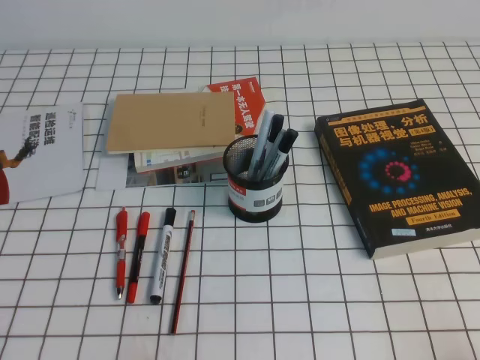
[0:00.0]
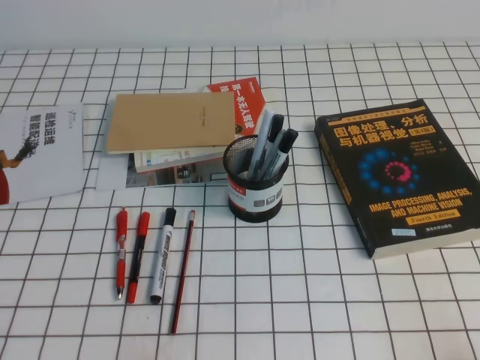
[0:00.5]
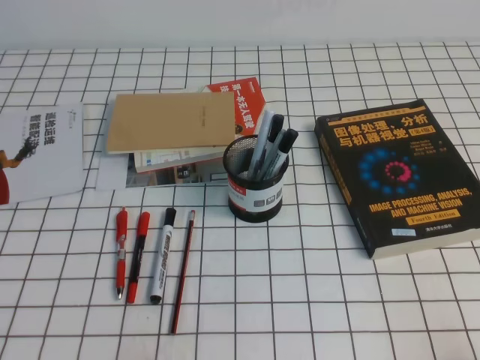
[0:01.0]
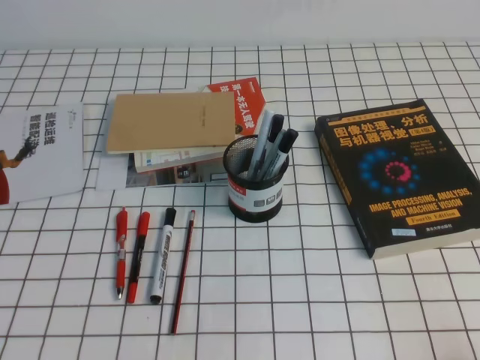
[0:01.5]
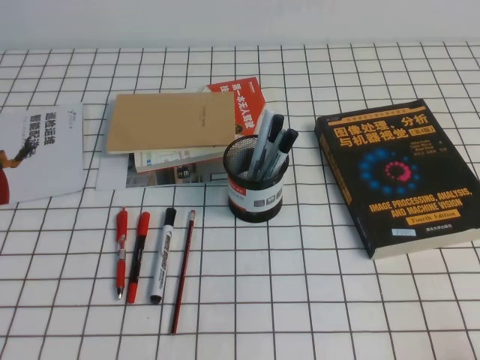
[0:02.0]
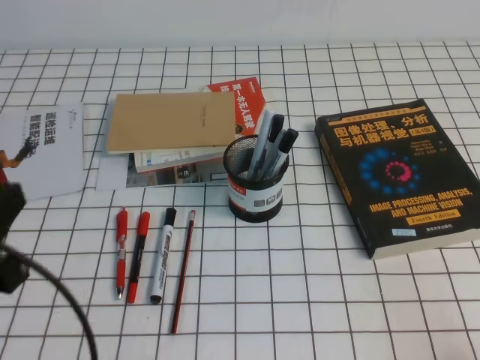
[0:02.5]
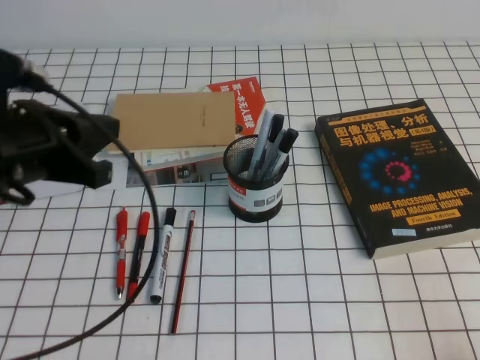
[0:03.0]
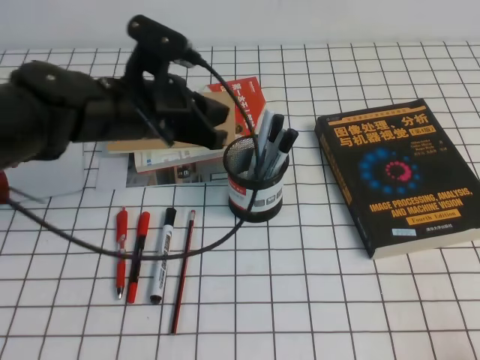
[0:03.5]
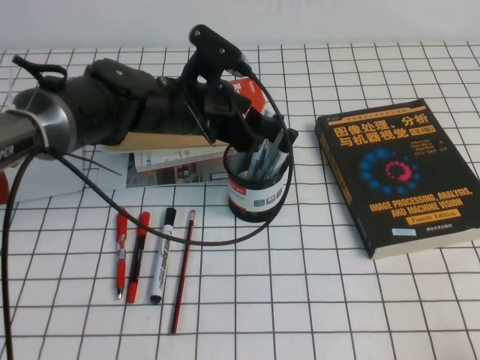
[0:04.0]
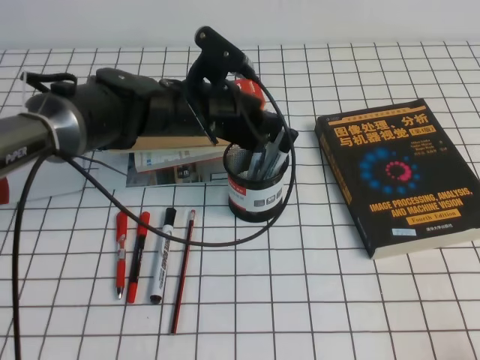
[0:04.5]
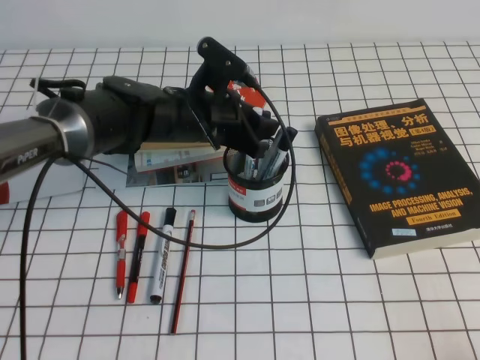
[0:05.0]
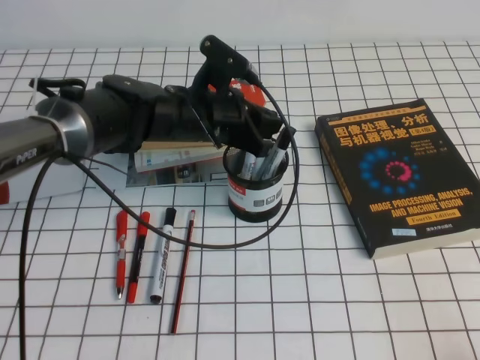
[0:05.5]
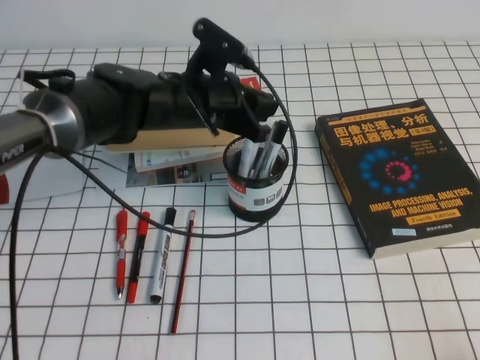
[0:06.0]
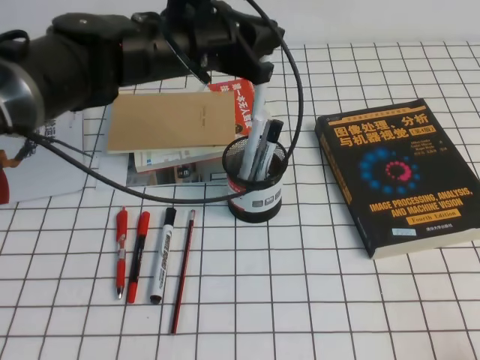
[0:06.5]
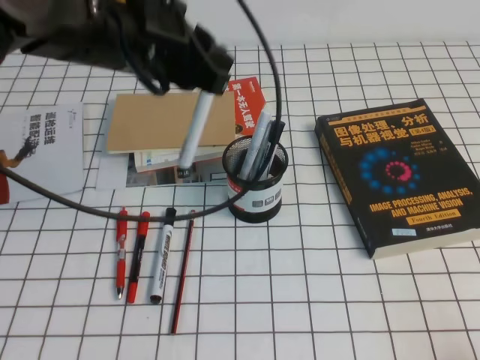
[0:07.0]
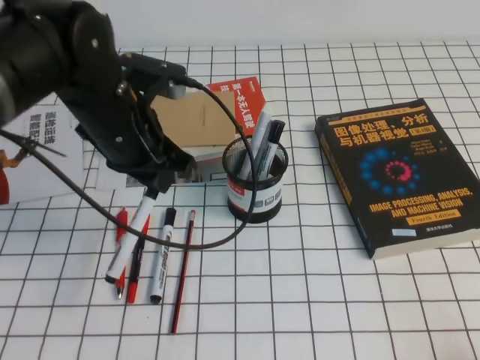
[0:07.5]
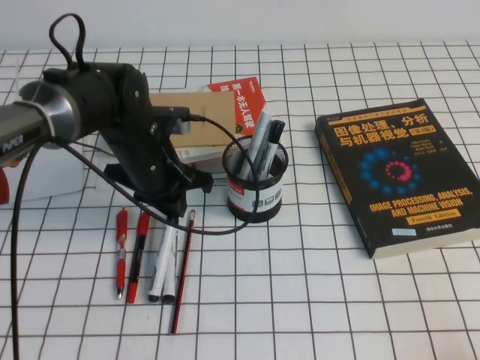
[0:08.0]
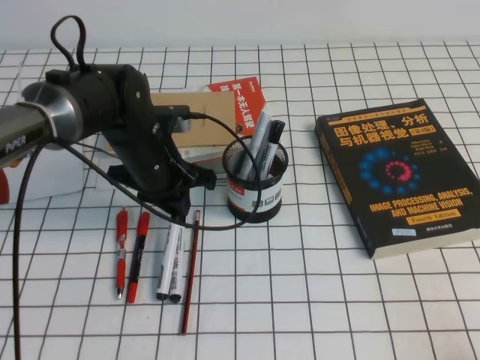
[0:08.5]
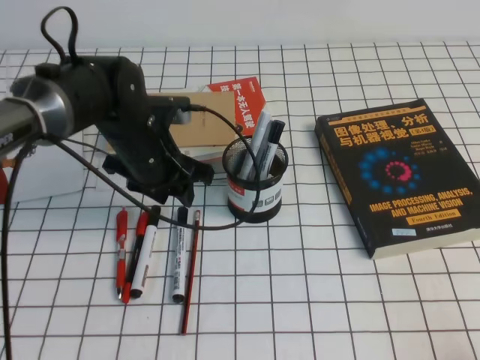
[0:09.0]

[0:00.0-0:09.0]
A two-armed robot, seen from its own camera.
0:02.0 to 0:04.5: The left gripper goes some 40 cm forward and to the right, and opens up.
0:04.5 to 0:07.0: The left gripper shifts roughly 15 cm upward and backward, and closes its fingers.
0:07.0 to 0:09.0: The left gripper heads downward, covering about 15 cm.

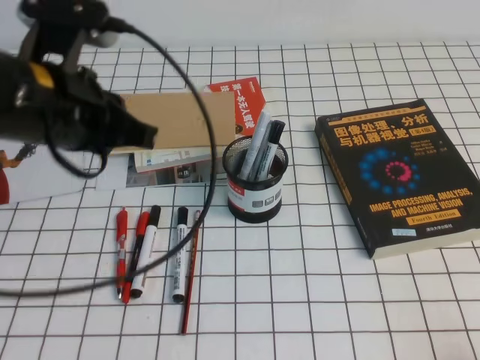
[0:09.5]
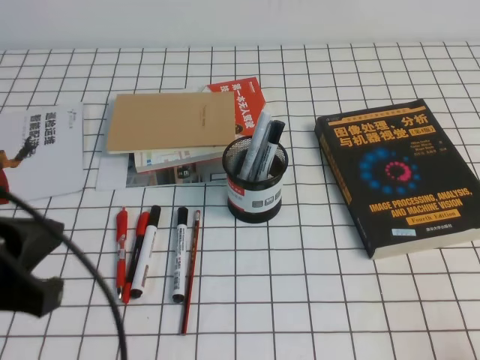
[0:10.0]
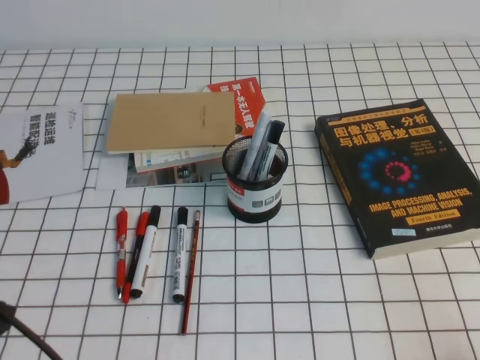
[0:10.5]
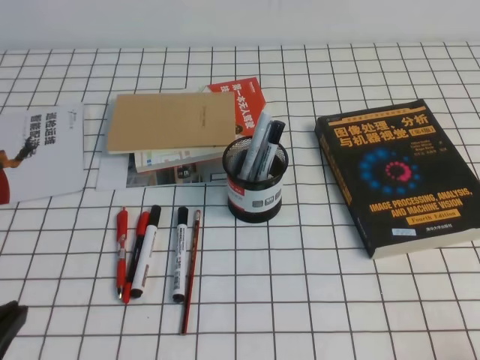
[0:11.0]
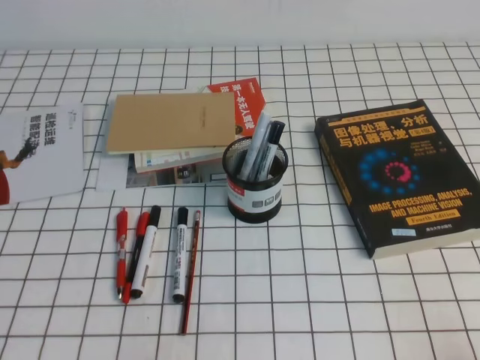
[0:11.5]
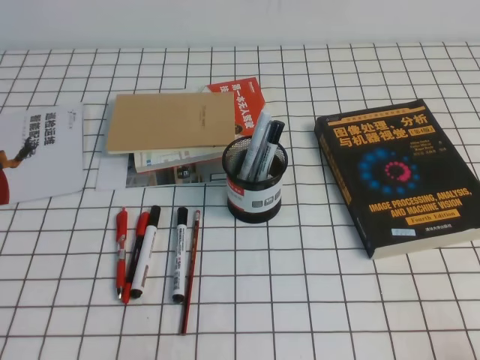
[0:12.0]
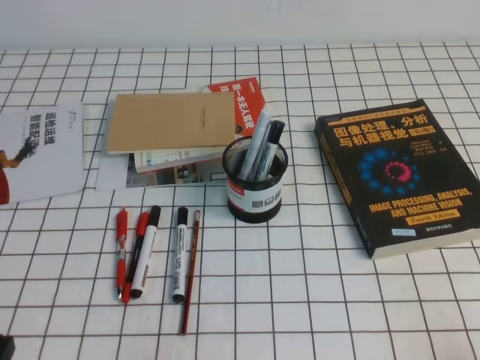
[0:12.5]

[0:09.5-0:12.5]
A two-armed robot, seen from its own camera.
Step, 0:09.5 to 0:12.5: Pick up the pen from the pen holder.
0:09.5 to 0:11.0: The left gripper heads backward, to the left and downward, covering about 25 cm.

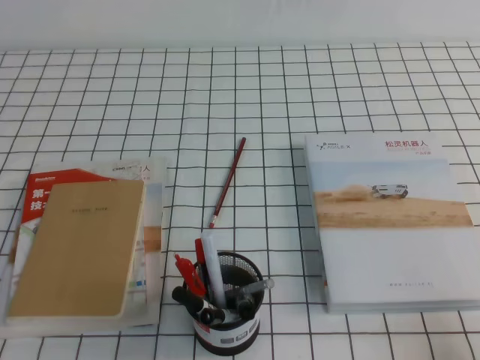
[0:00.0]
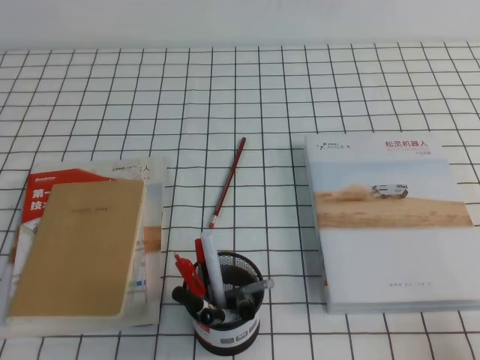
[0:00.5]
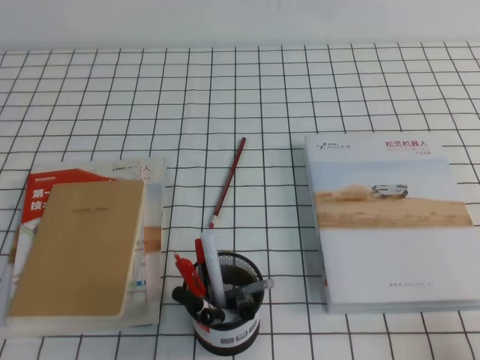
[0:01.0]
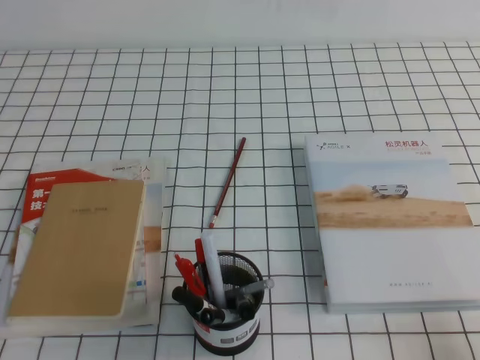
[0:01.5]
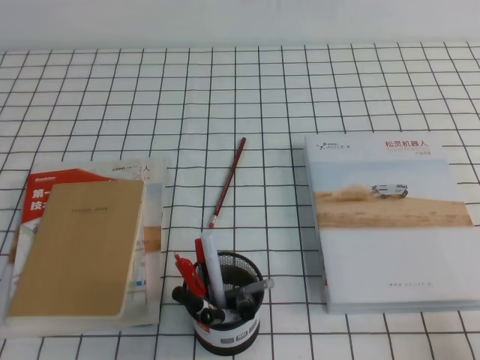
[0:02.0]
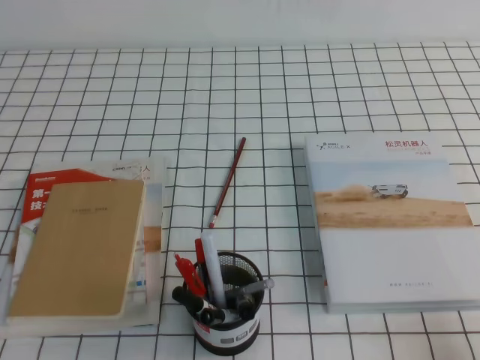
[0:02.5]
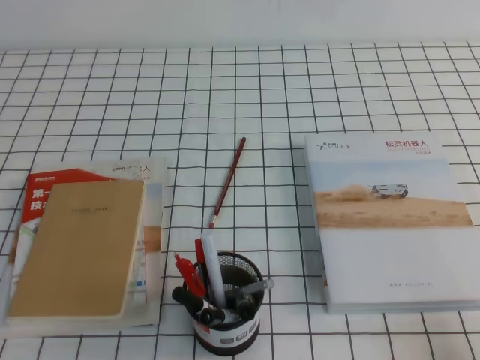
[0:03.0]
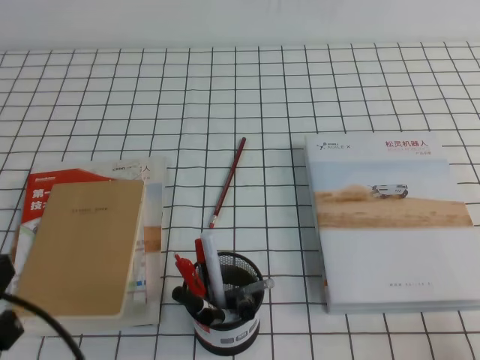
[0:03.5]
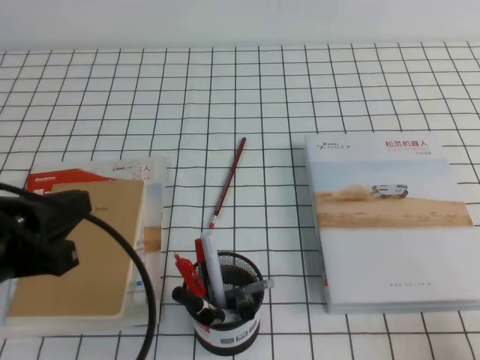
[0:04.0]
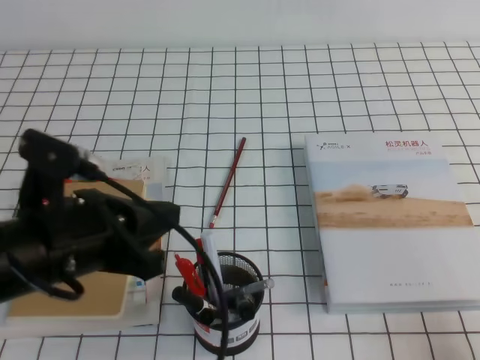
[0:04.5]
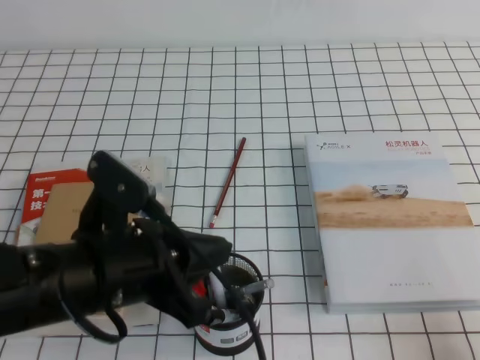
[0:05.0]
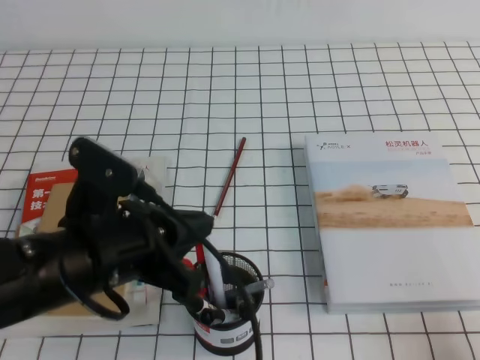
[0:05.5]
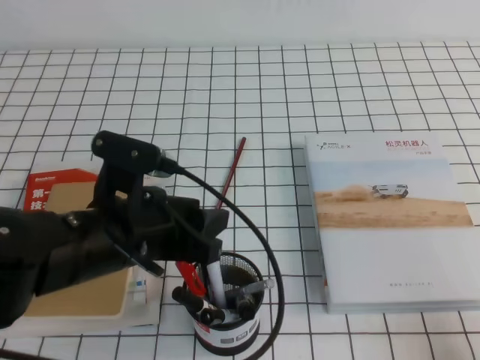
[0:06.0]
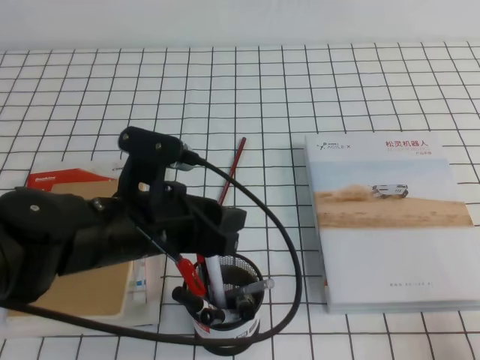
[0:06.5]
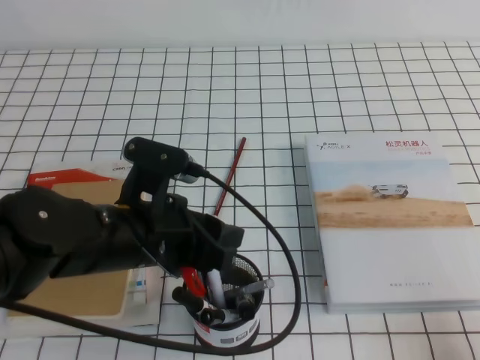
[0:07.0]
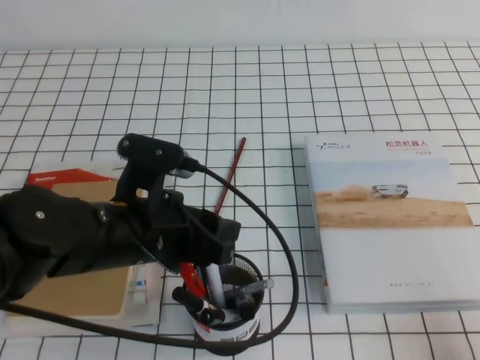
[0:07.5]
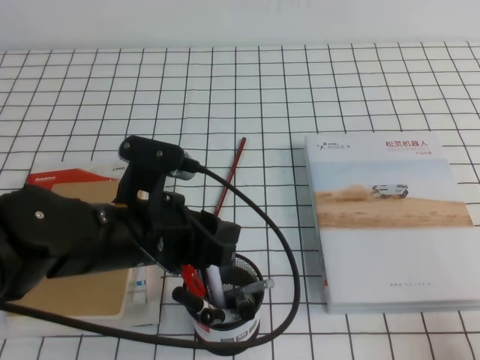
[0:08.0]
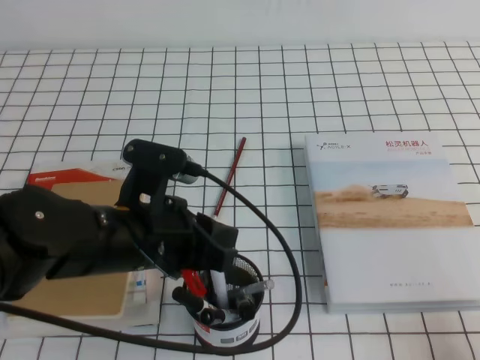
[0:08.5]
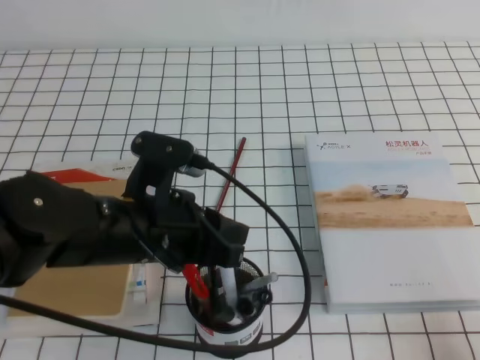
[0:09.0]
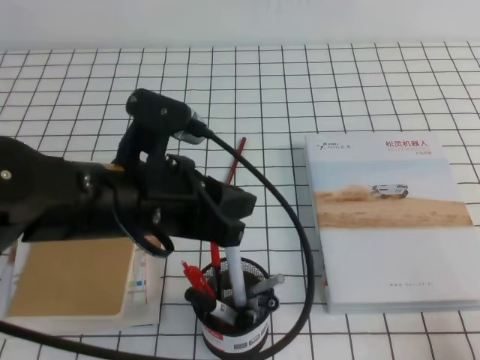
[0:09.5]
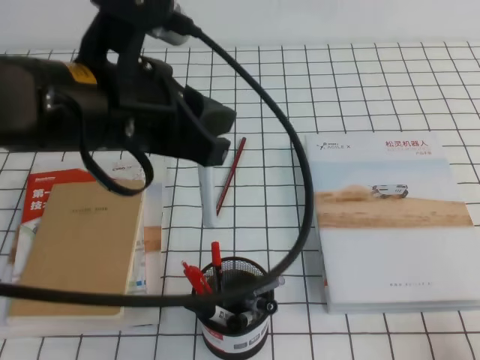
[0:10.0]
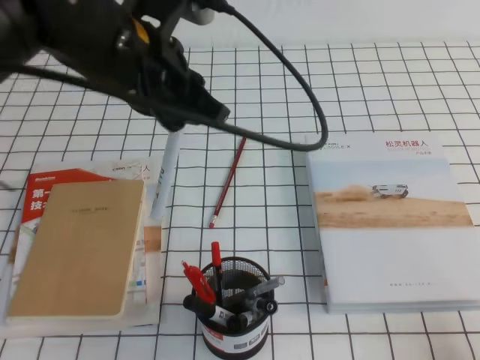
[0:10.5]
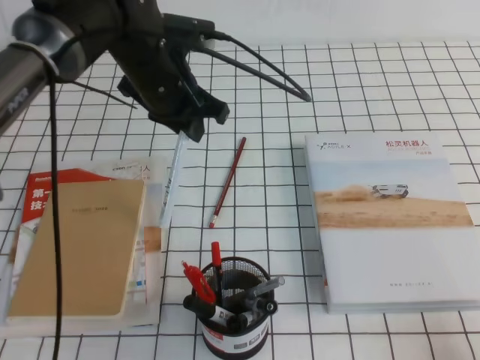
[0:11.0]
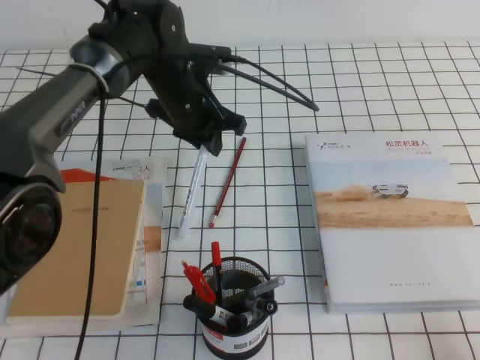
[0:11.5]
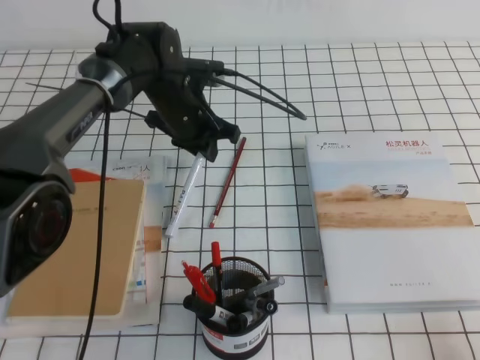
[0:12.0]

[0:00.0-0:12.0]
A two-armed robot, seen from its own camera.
0:00.0 to 0:02.0: Both grippers stay put.
0:02.0 to 0:04.0: The left gripper heads upward, forward and to the right, covering approximately 15 cm.
0:04.0 to 0:06.0: The left gripper is displaced to the right and forward by about 10 cm, and opens.
0:06.0 to 0:08.0: The grippers make only small movements.
0:08.0 to 0:10.0: The left gripper heads upward, covering approximately 15 cm, and closes its fingers.
0:10.0 to 0:12.0: The left gripper goes roughly 30 cm forward and downward.

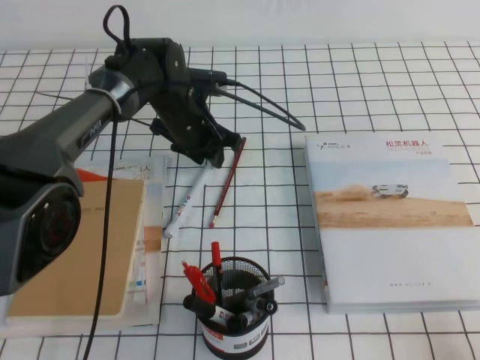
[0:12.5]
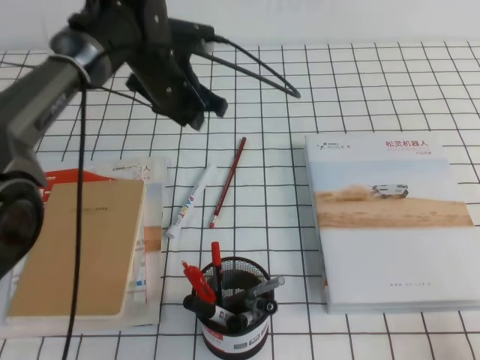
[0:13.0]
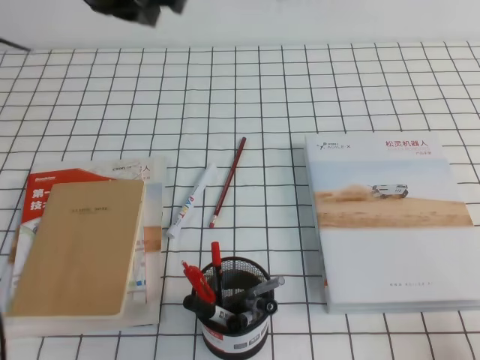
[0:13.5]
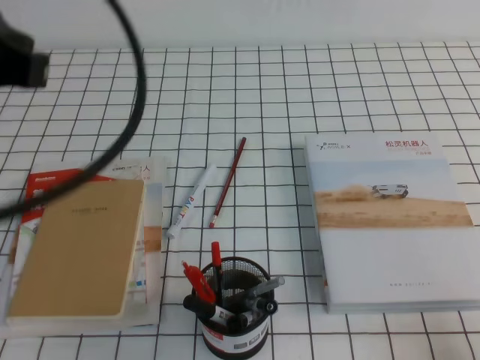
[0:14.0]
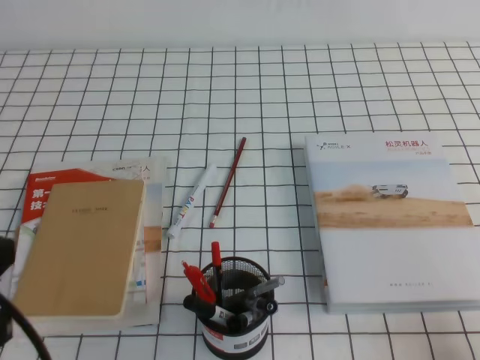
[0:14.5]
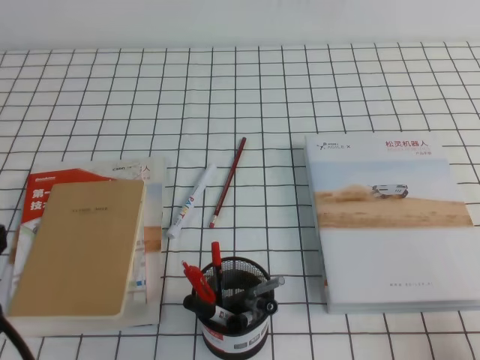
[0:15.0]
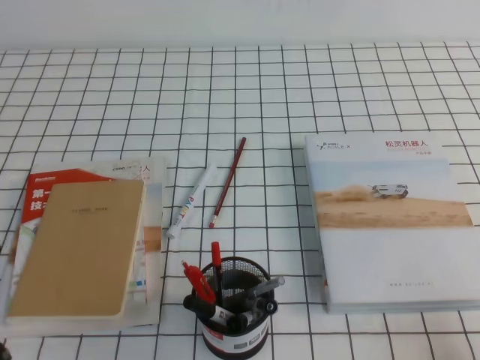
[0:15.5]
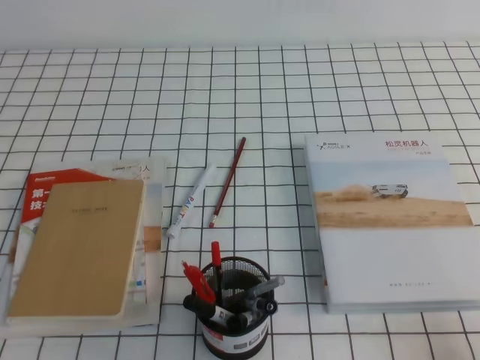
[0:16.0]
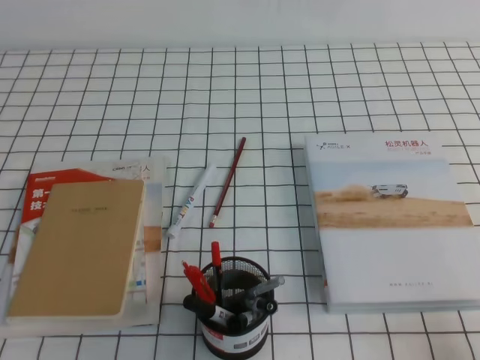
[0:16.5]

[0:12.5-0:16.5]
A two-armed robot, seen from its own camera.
0:12.5 to 0:14.5: The left gripper goes about 40 cm backward, to the left and upward, and closes up.
0:14.5 to 0:16.5: The left gripper heads downward, covering approximately 15 cm.
